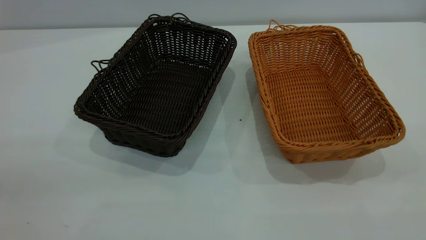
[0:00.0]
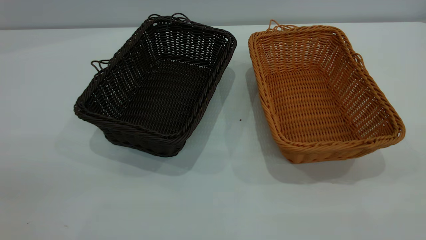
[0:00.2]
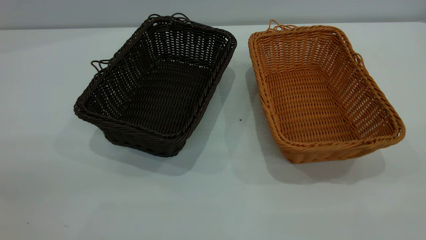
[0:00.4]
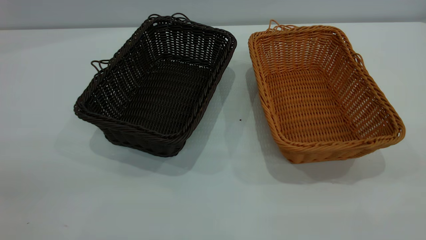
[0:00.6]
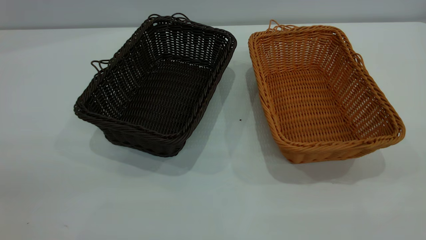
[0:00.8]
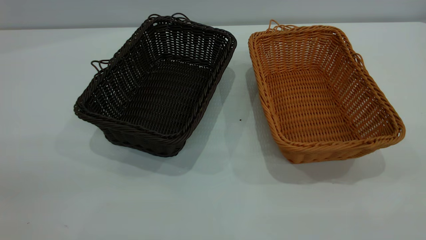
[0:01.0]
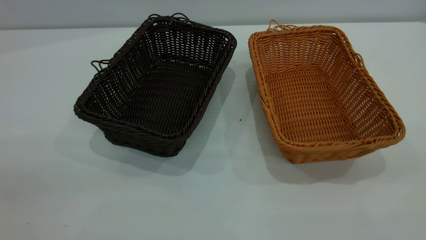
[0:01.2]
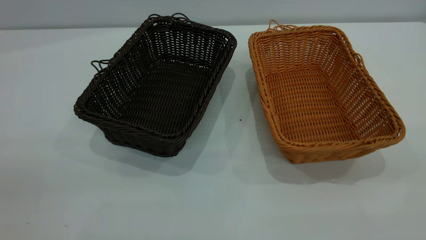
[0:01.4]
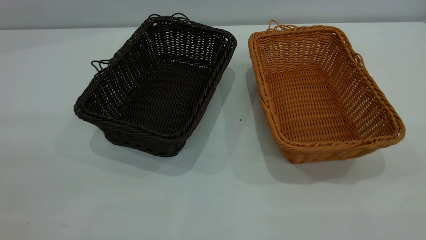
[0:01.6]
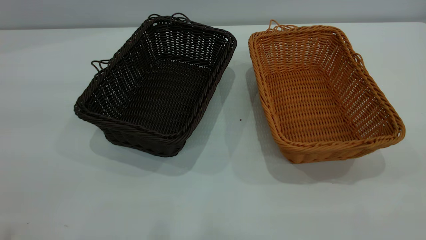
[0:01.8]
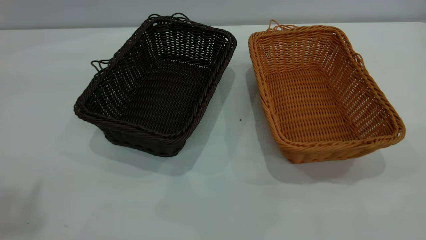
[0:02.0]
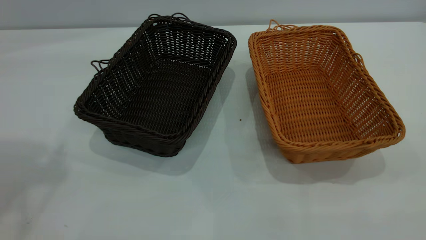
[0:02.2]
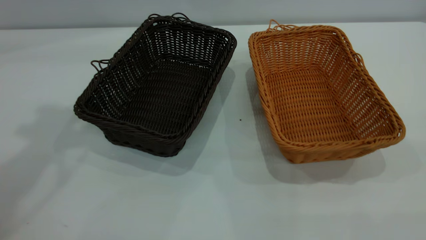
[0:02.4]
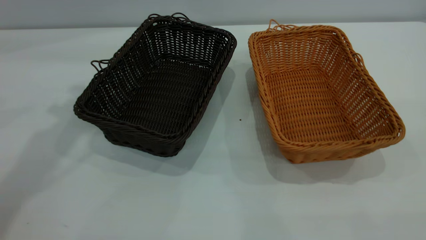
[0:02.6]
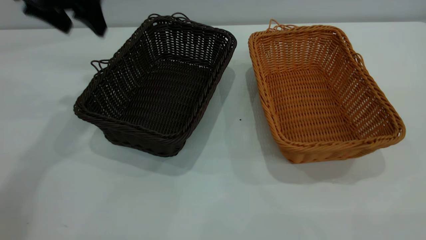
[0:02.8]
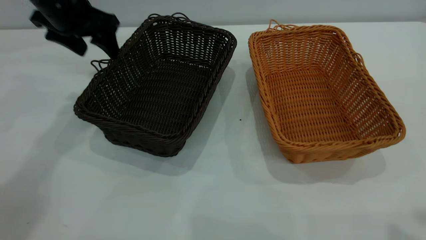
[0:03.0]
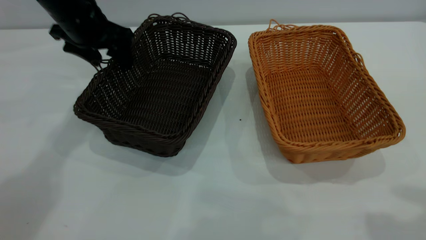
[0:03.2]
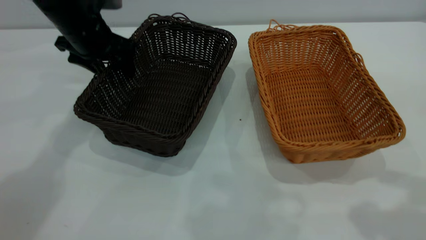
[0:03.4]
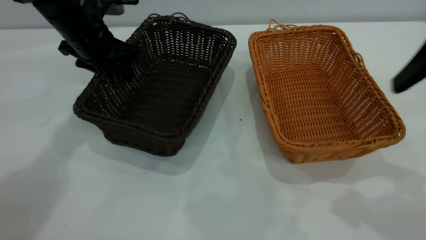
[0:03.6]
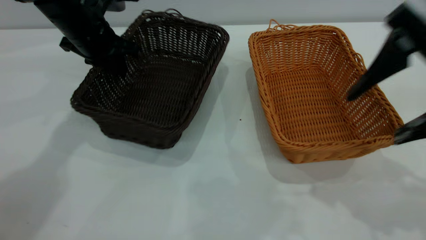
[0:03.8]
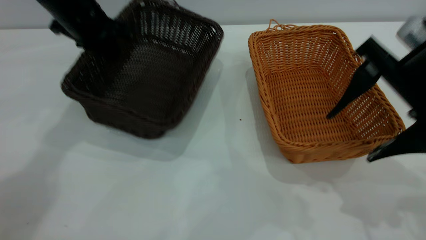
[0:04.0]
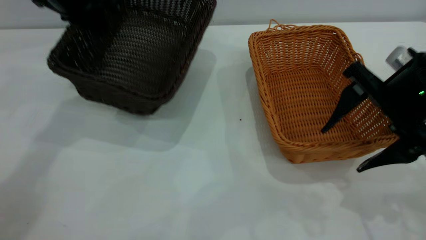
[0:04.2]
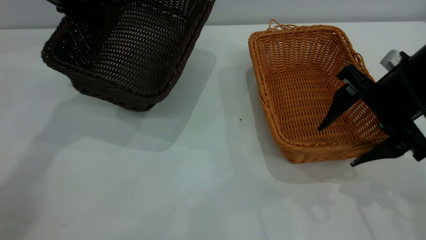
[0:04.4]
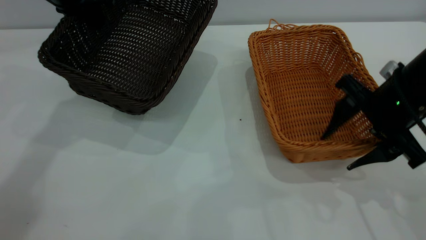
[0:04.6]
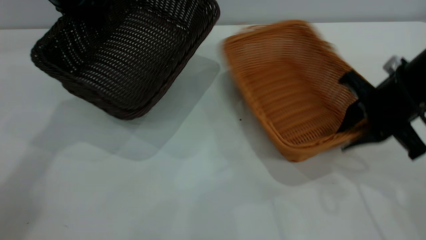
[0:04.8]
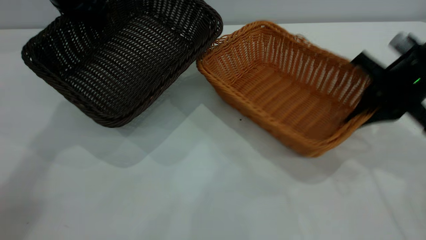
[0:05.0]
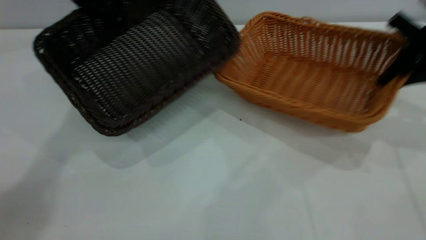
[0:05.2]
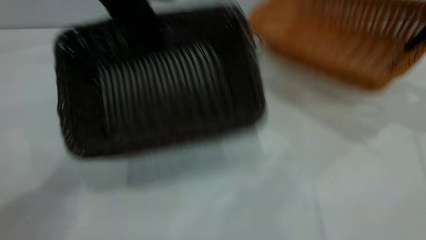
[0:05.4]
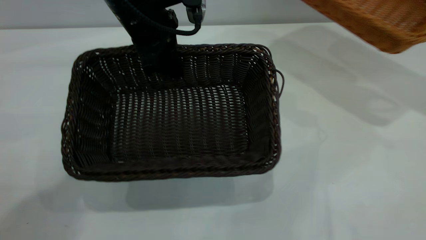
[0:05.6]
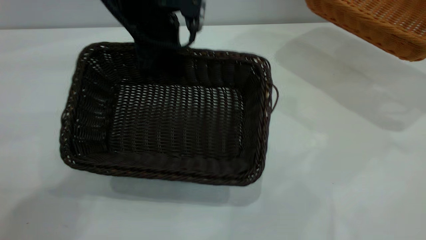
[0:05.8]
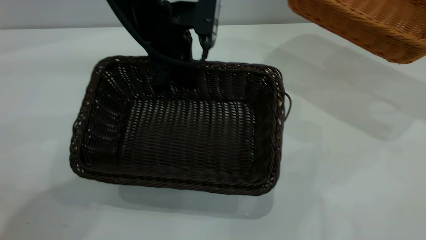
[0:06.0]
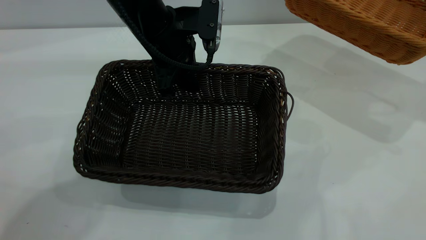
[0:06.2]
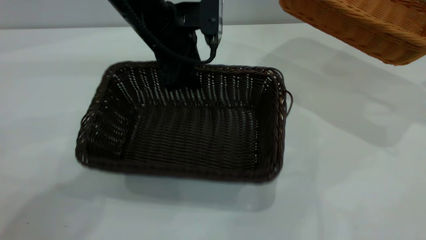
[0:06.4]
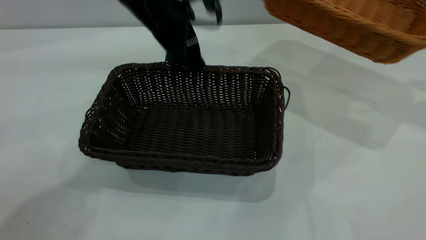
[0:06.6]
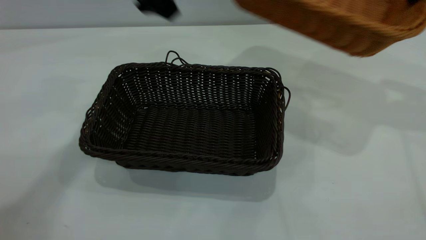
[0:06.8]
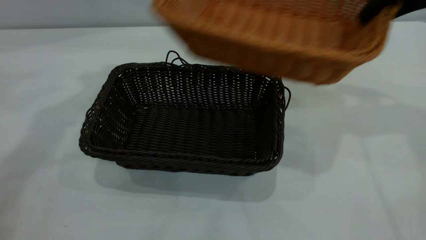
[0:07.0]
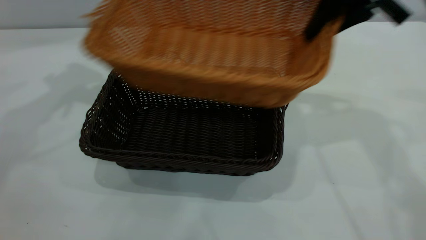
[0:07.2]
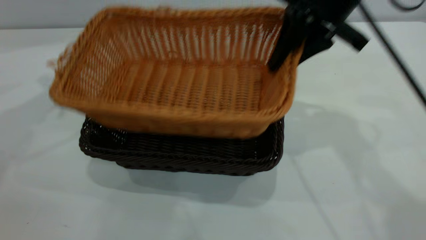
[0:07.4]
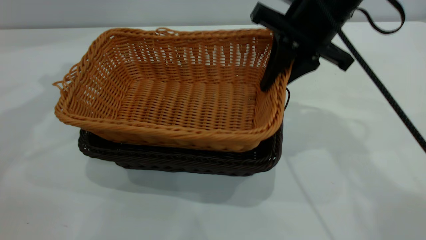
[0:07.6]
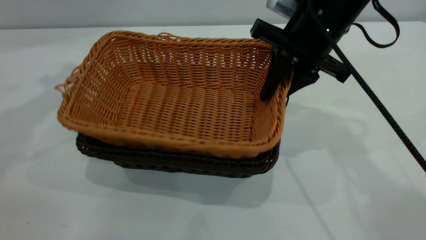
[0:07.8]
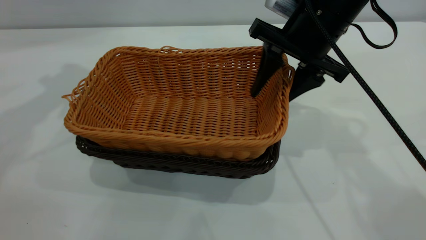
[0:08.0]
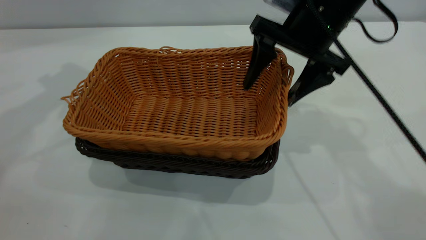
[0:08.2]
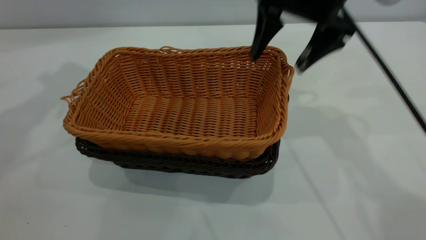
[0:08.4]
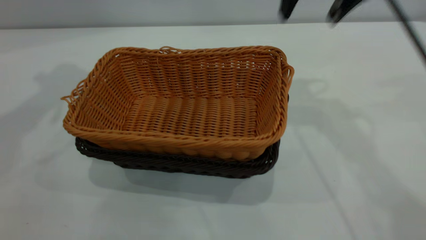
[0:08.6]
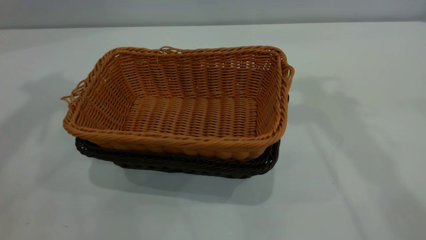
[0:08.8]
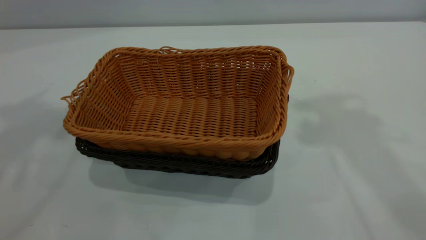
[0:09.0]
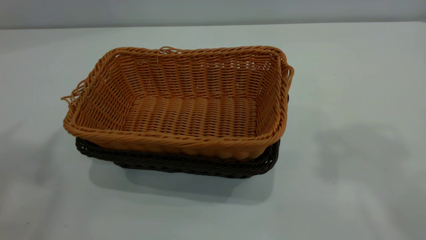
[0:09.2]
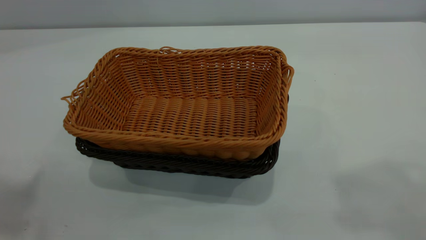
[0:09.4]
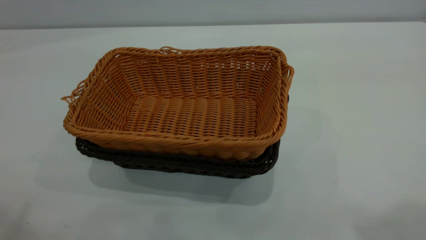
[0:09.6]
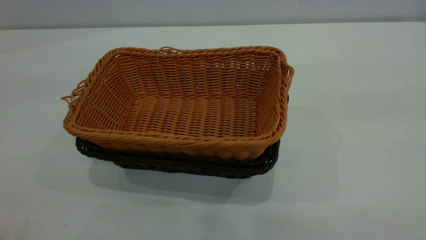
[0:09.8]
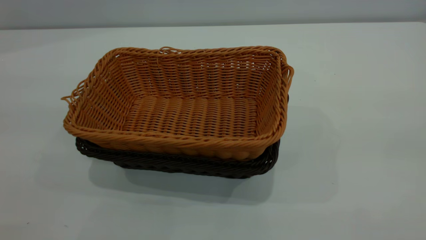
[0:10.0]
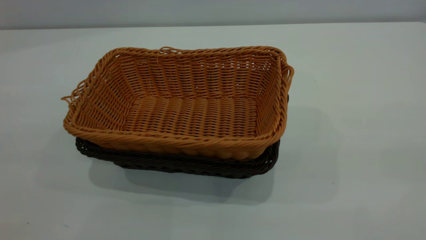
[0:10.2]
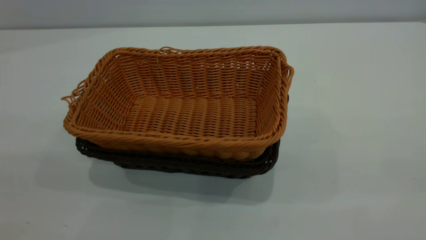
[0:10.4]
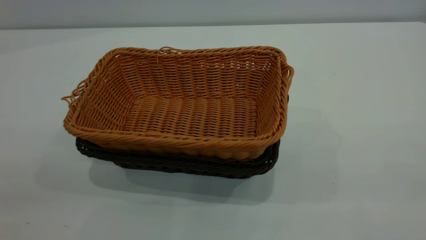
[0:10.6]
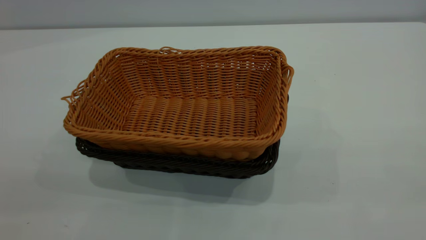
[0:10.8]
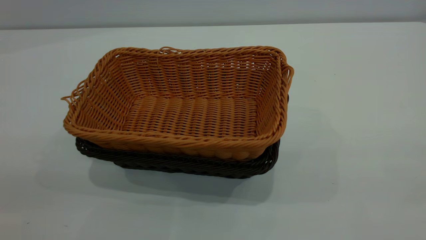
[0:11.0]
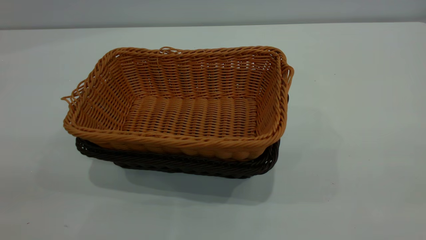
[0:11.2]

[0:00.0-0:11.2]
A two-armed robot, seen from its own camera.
Task of the whole recording: the left gripper grasp the black basket and place it in the center of the table, the right gripper grasp the brown basket and place it inside the black one.
Step, 0:00.0 to 0:05.0: Pick up the light basket with the right gripper.
Step, 0:05.4 to 0:06.4: Move the dark basket to the center of view.
Step, 0:06.8 to 0:08.2: Place the light basket on the dark basket.
0:01.6 to 0:03.2: The left gripper goes roughly 50 cm forward and downward.
0:03.2 to 0:04.8: The left gripper heads upward, covering approximately 5 cm, and closes up. The right gripper moves downward and forward, about 25 cm, and closes up.
0:04.8 to 0:06.4: The right gripper is displaced to the right, upward and forward by some 20 cm; the left gripper moves to the right, about 15 cm, and opens.
0:06.4 to 0:08.0: The left gripper travels to the left and upward by approximately 25 cm. The right gripper moves to the left, approximately 30 cm, and opens up.
0:08.0 to 0:09.6: The left gripper moves backward and upward, some 40 cm. The right gripper moves upward and backward, approximately 40 cm.

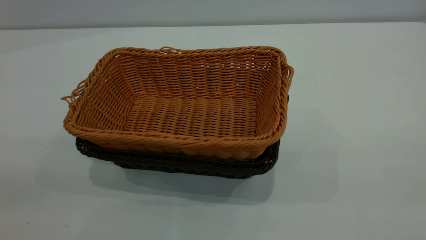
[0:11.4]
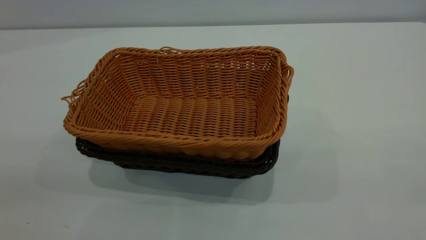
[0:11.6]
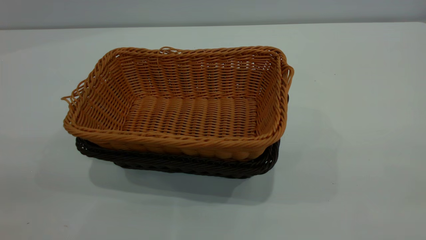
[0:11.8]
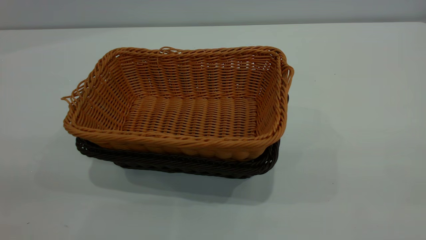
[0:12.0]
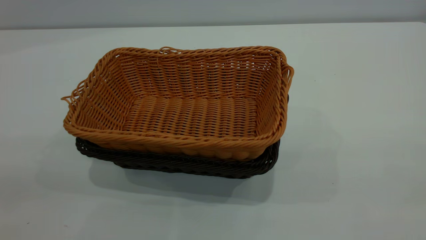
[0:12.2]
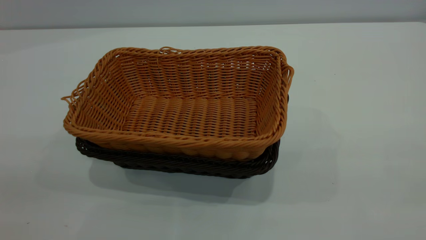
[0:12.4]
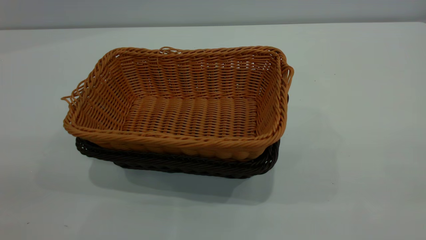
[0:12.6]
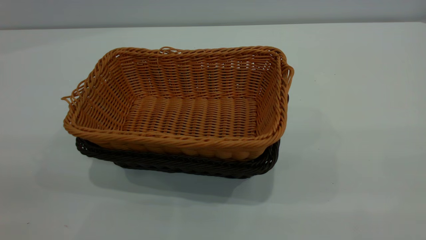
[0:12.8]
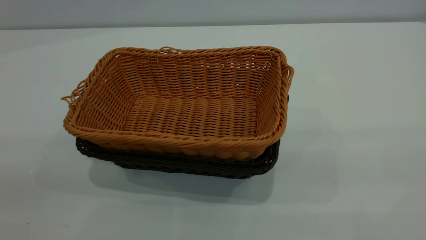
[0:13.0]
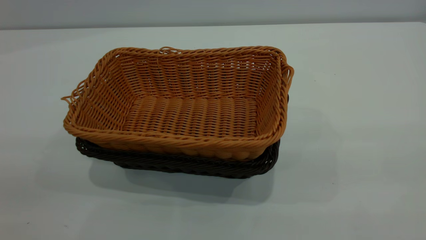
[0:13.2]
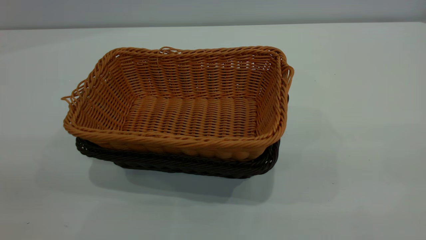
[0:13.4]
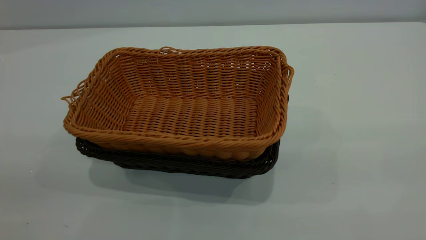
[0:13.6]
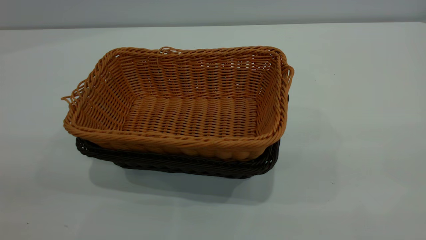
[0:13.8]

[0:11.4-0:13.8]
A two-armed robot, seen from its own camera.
Task of the whole recording: the left gripper grasp the black basket and place it in the center of the table, the right gripper grasp the brown basket and place it inside the black one.
0:11.4 to 0:12.6: Both grippers stay put.
